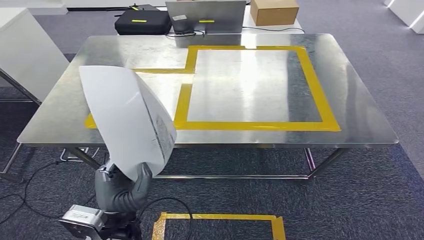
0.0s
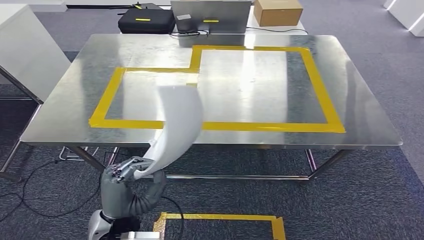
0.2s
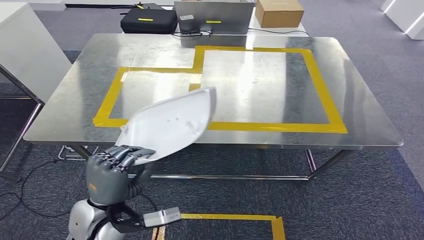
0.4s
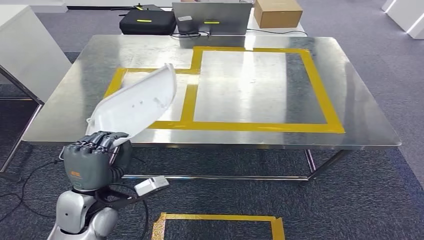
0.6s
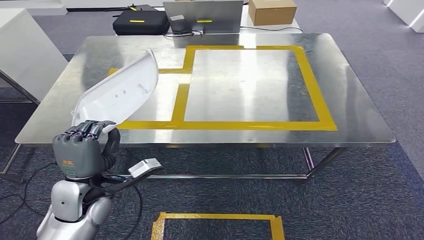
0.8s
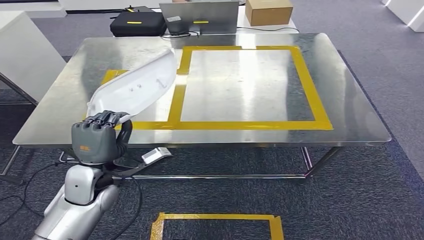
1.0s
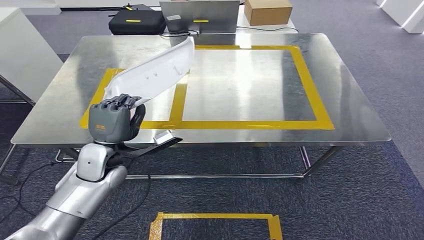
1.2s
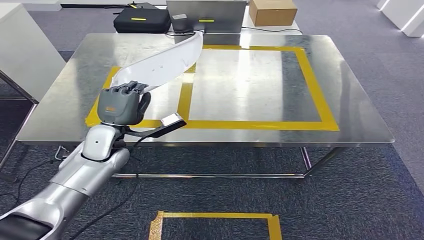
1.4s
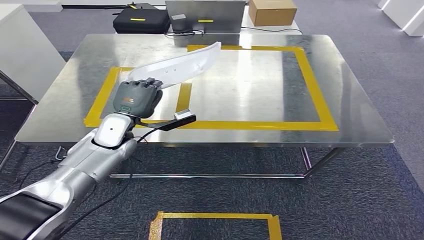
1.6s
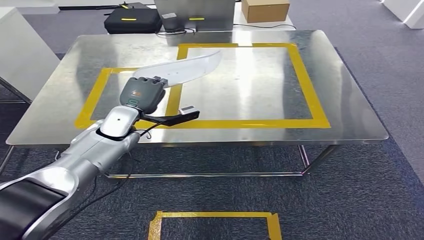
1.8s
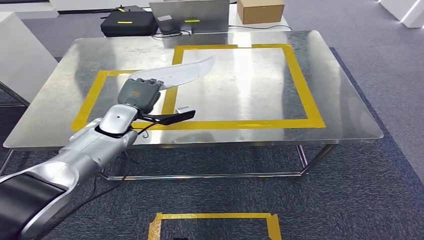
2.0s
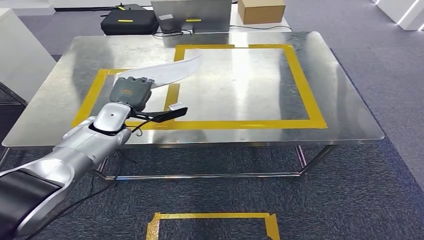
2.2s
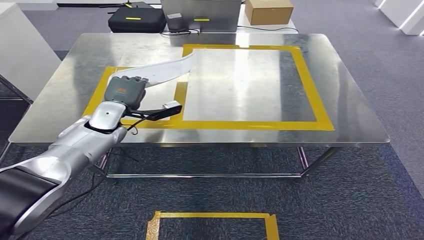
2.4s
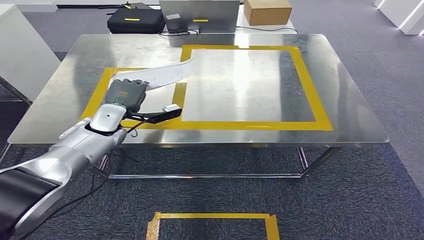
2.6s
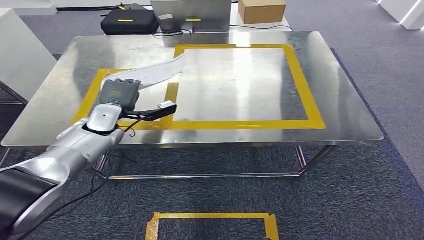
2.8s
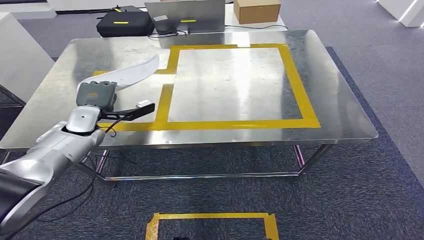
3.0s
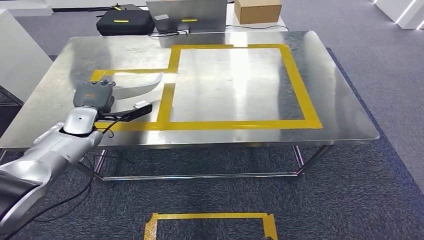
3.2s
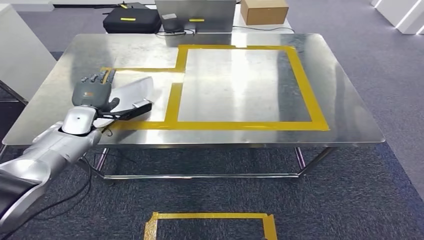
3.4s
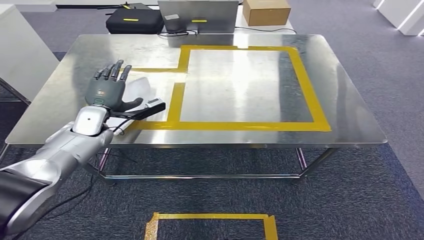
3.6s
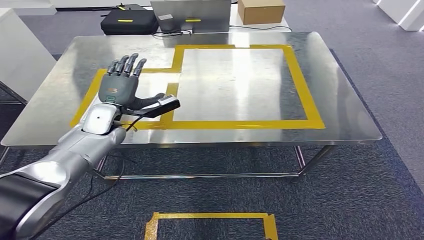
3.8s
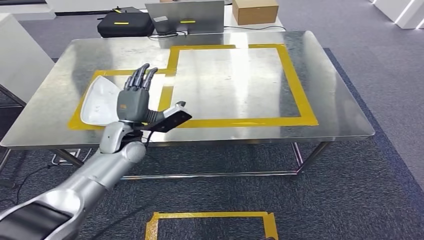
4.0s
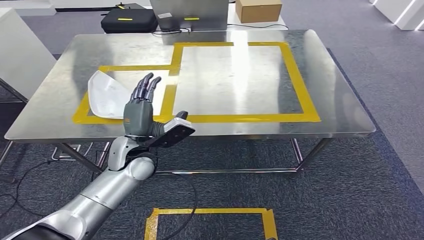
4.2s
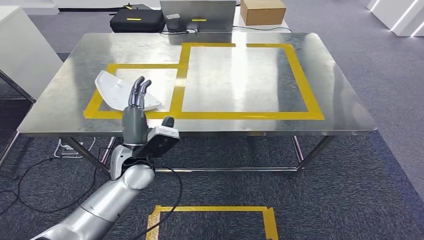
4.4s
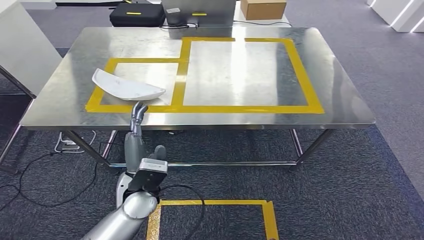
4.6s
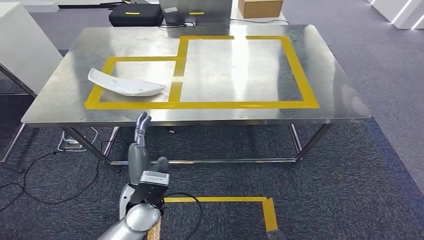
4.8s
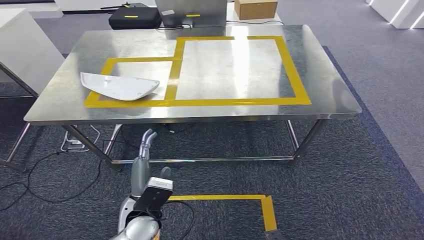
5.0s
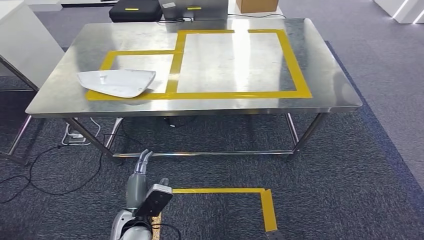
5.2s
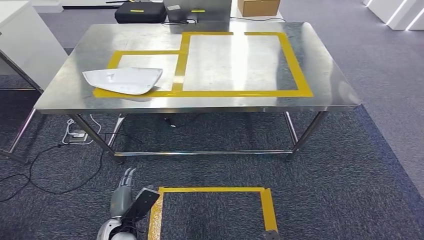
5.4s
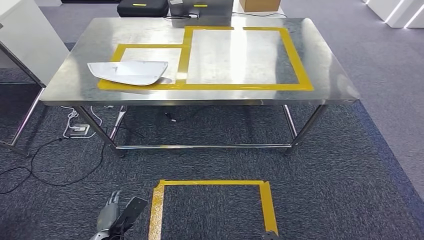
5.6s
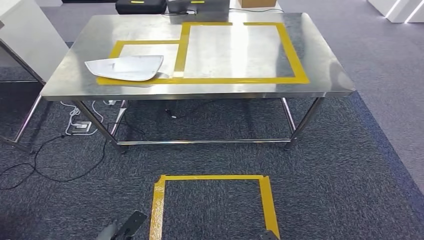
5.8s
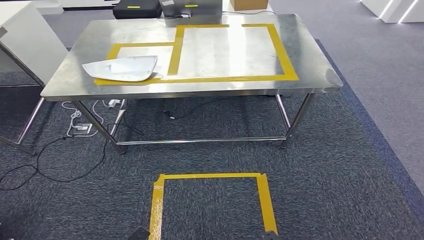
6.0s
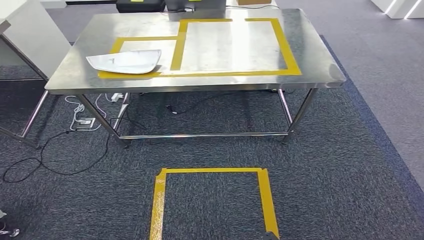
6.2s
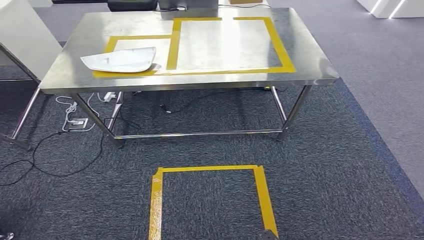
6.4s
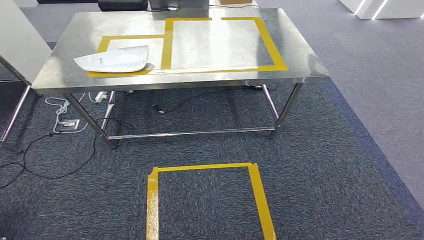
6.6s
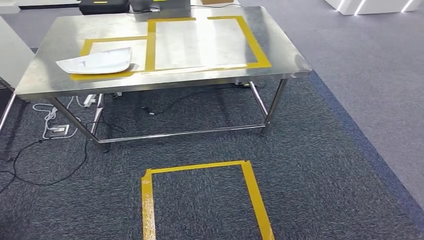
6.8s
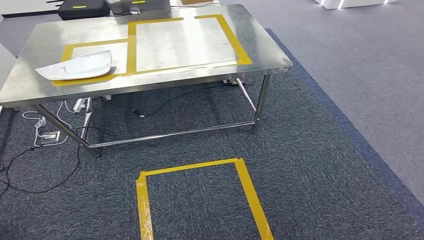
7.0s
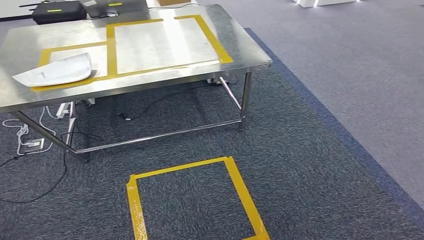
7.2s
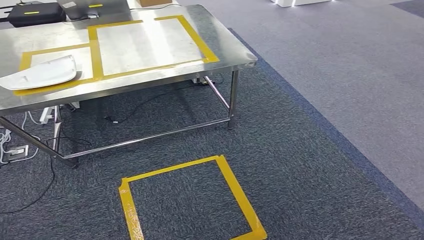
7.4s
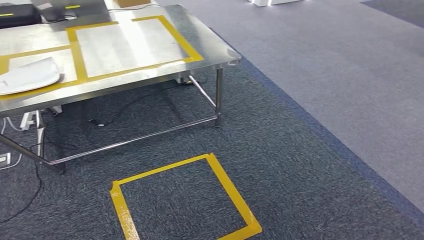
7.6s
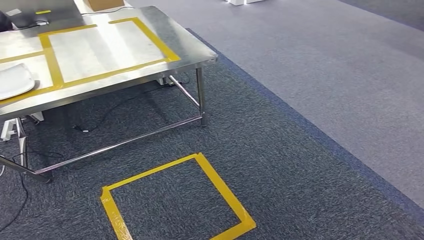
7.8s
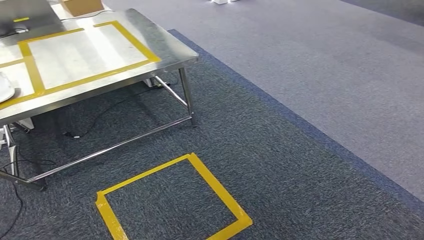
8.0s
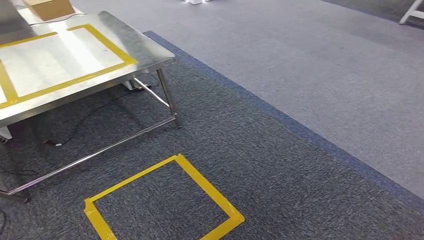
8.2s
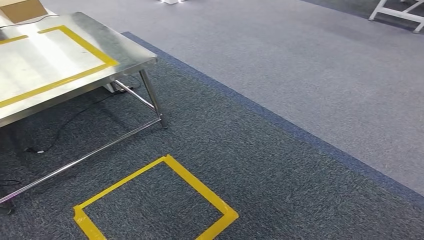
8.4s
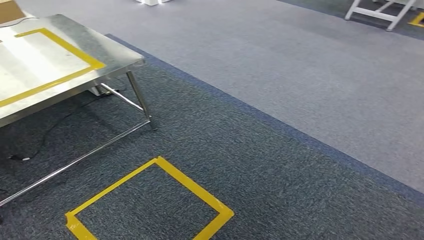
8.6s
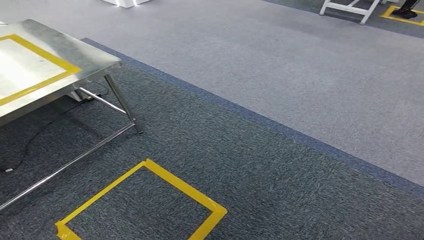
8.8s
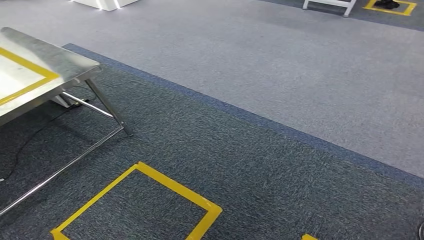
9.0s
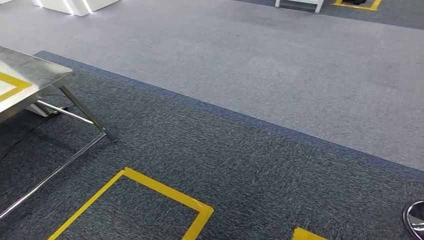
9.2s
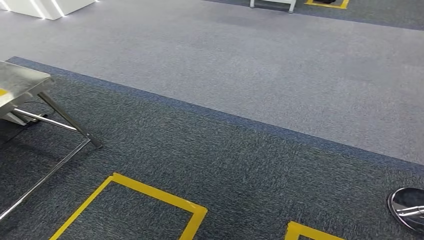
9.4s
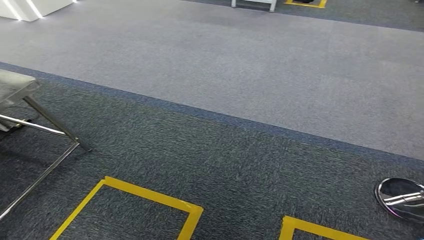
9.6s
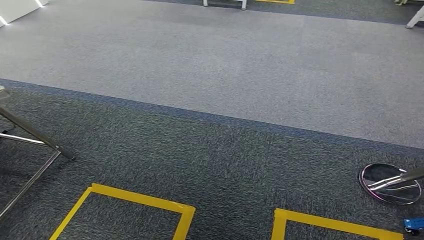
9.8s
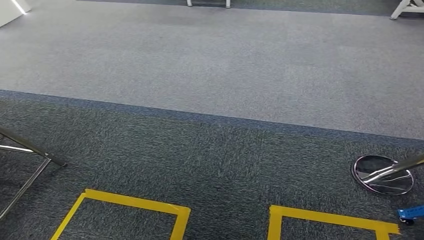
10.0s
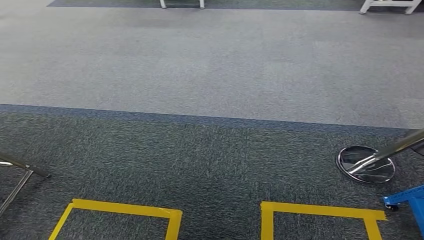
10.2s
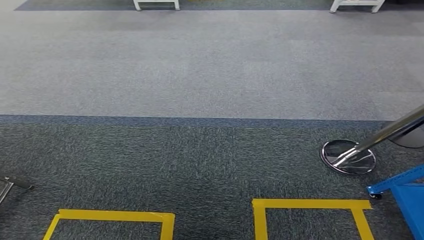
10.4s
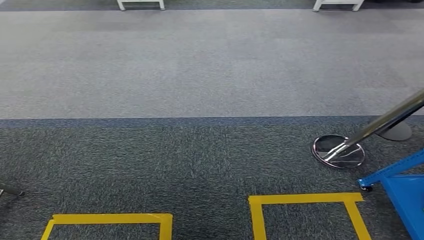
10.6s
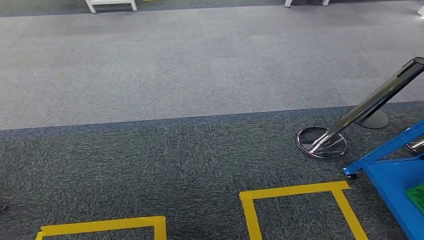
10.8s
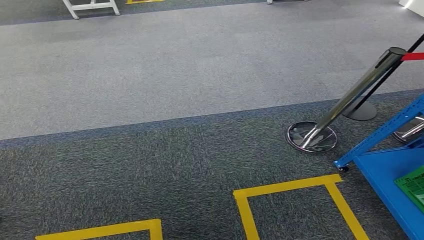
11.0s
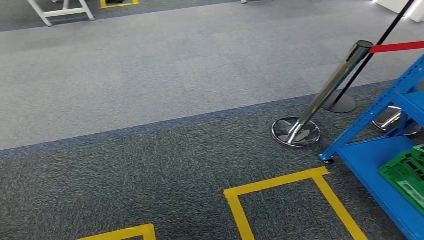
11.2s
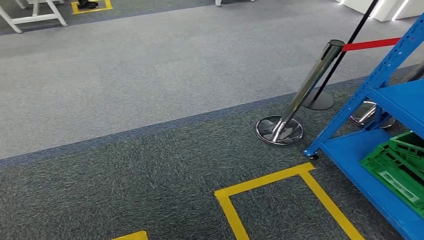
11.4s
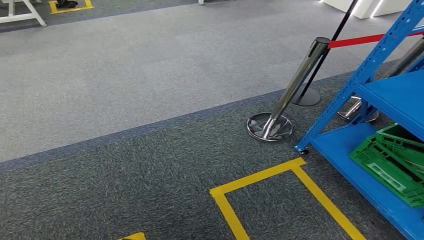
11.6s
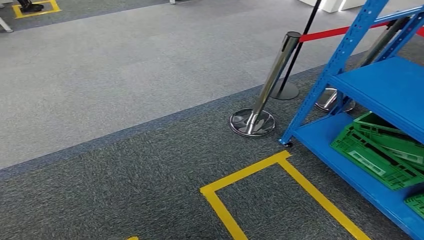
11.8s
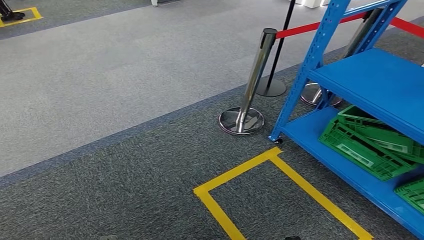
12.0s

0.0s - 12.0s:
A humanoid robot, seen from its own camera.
Step, 0.0s - 5.4s: Insert the small component into the corresponding slot on the workbench.

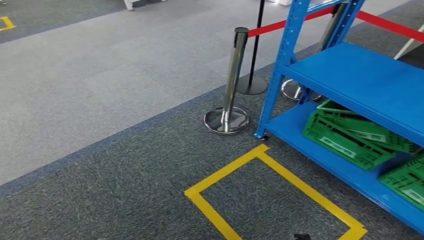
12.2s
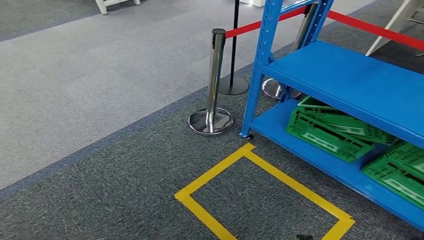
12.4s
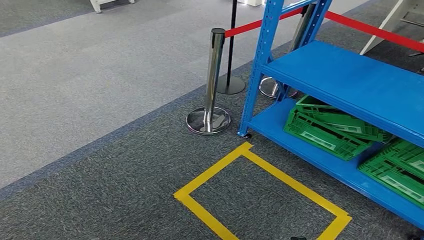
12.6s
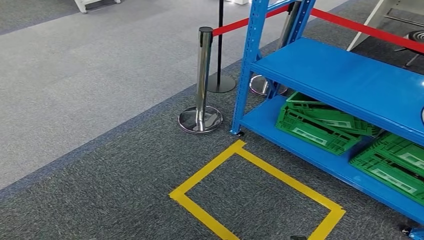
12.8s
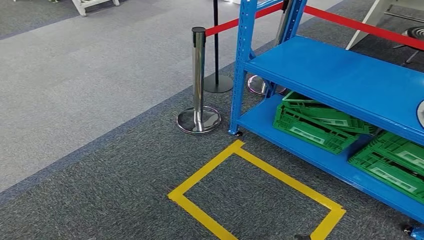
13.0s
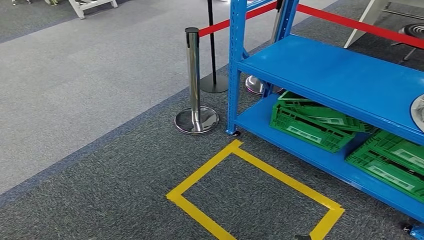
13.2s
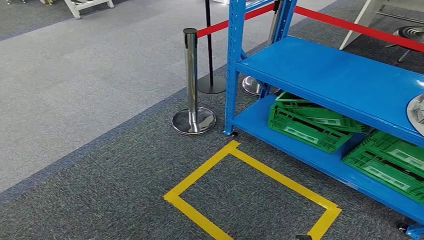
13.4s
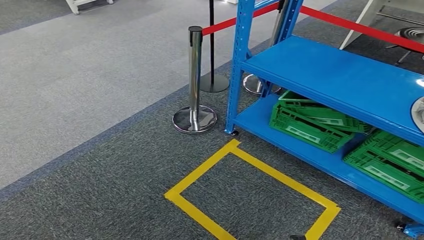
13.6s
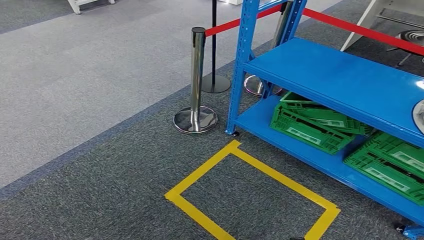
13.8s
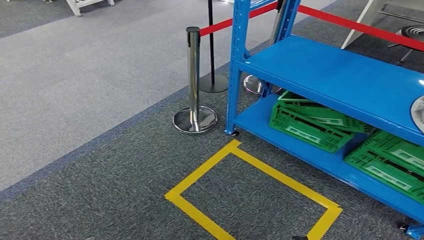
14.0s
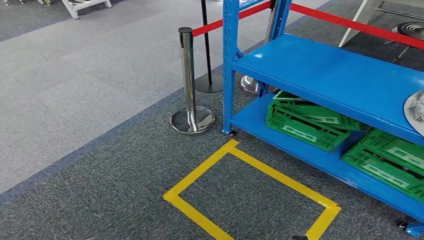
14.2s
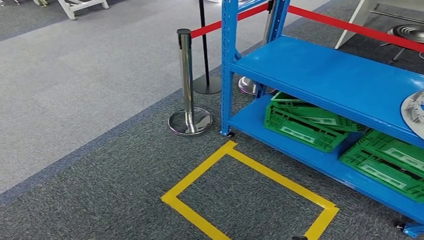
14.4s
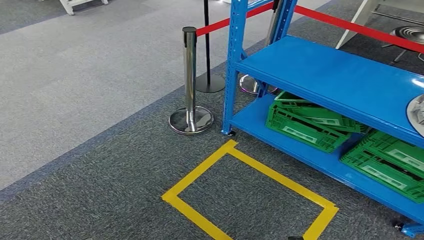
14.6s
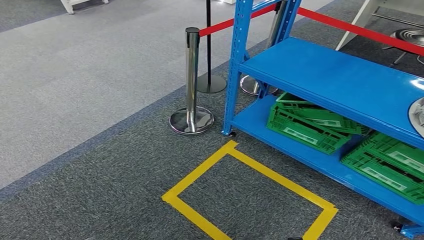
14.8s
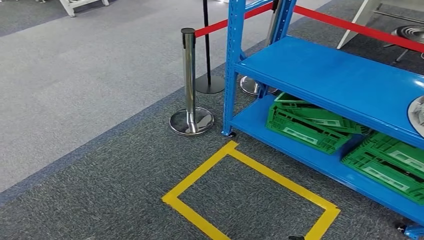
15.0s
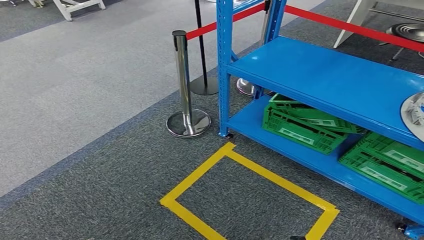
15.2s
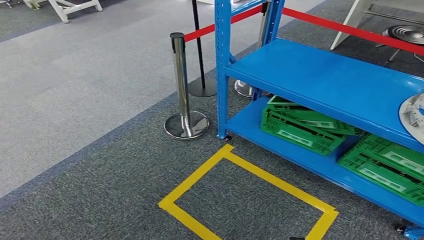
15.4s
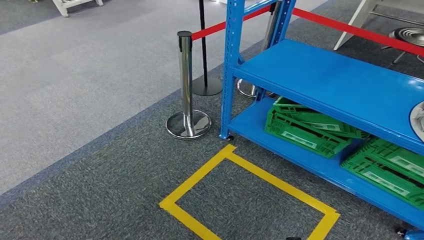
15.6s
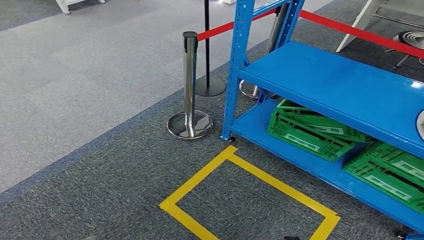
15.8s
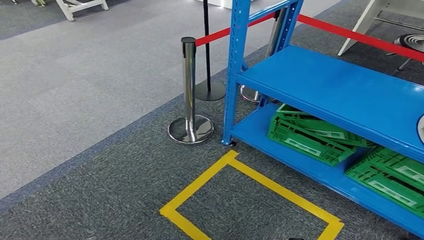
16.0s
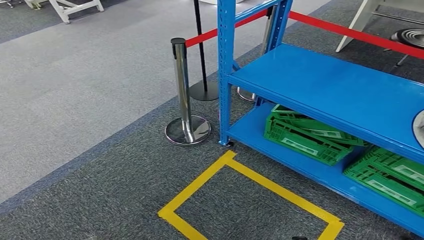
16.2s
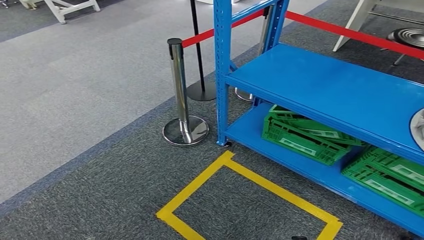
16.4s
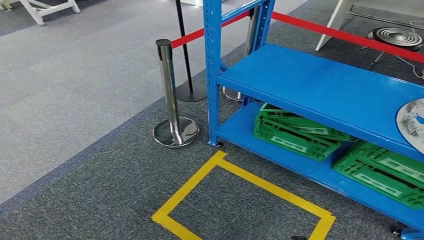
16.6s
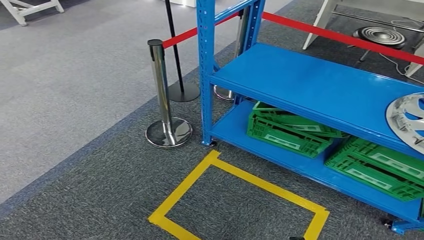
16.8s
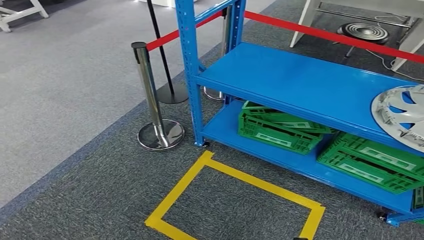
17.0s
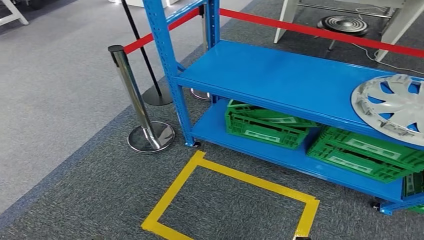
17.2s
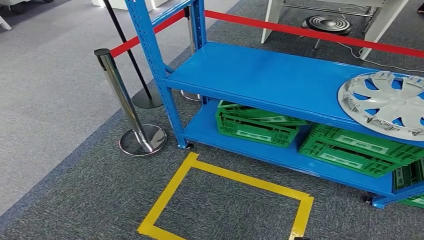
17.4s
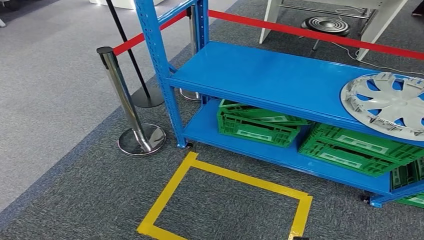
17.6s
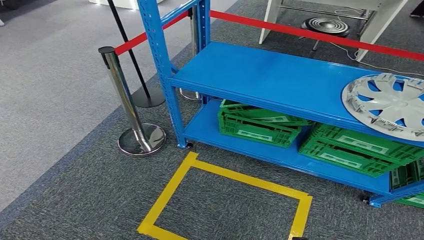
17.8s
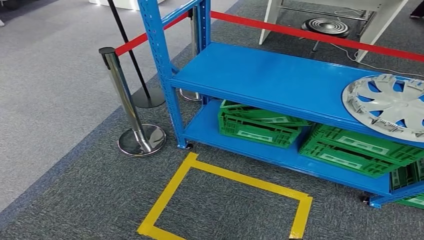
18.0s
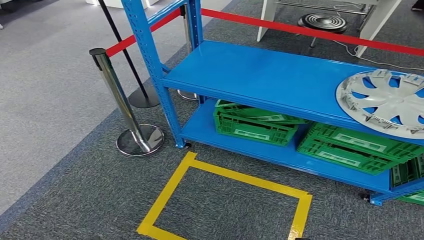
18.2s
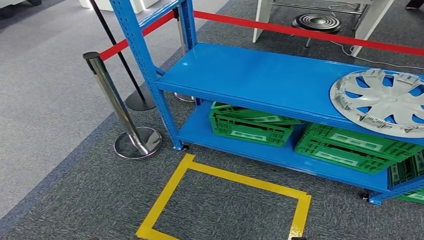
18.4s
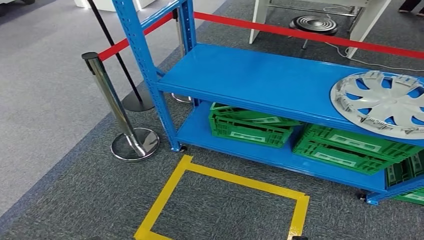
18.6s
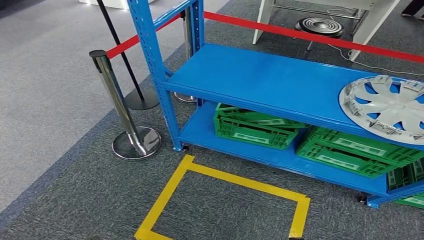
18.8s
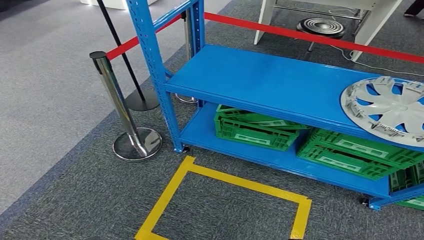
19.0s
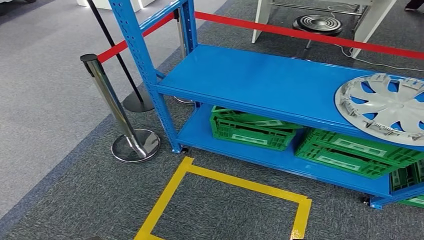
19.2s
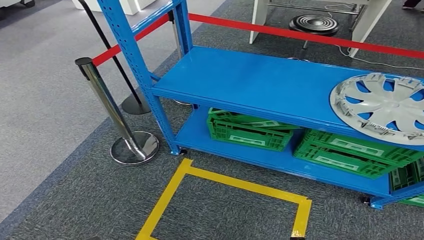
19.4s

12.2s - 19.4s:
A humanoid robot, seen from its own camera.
13.6s - 15.0s: The two hands keep their place.
